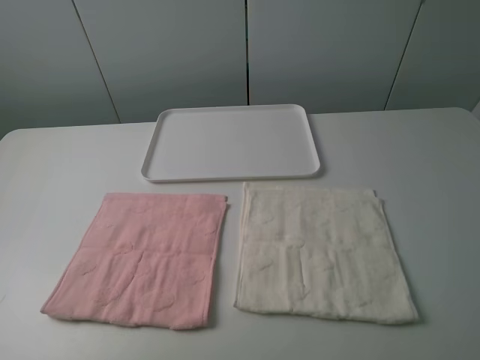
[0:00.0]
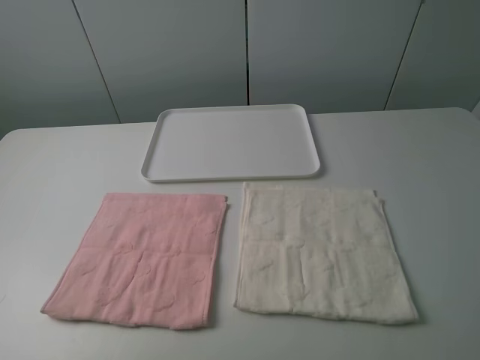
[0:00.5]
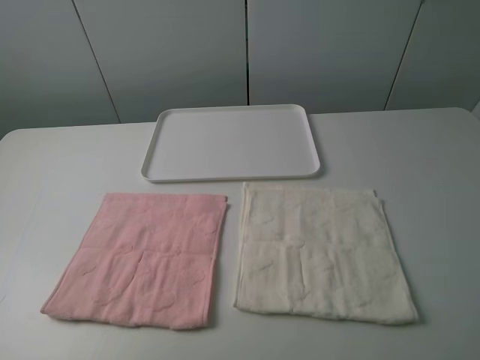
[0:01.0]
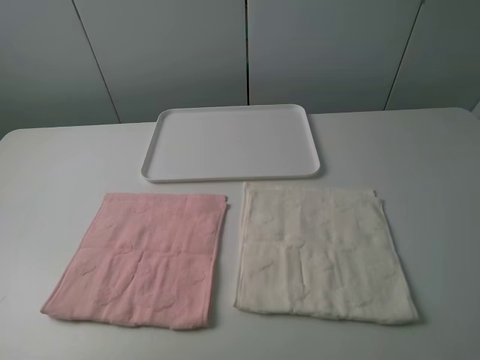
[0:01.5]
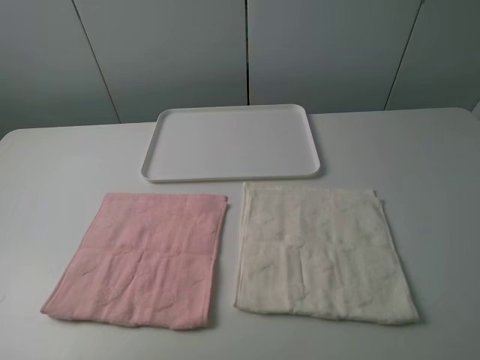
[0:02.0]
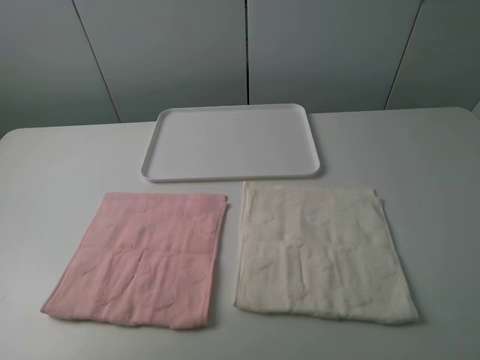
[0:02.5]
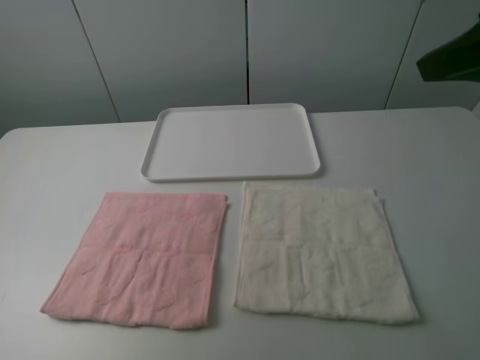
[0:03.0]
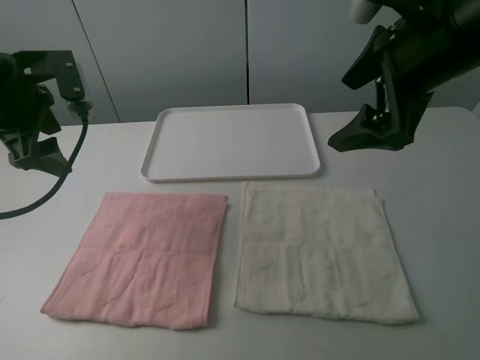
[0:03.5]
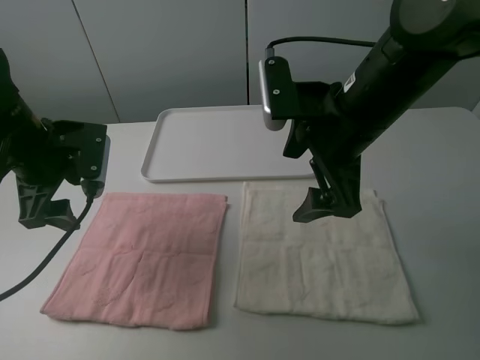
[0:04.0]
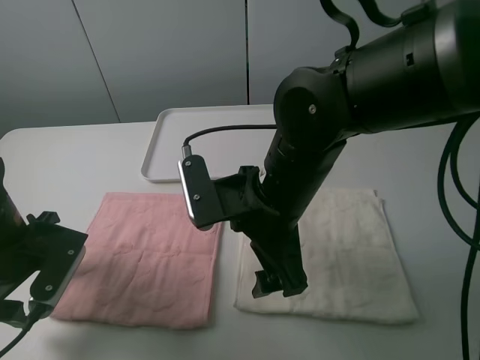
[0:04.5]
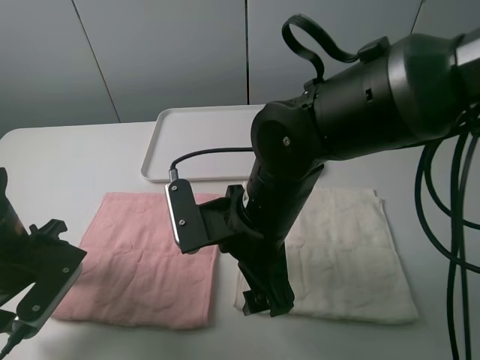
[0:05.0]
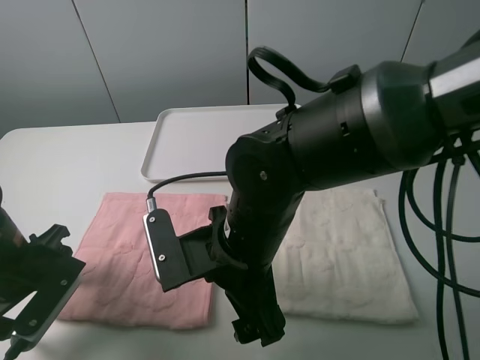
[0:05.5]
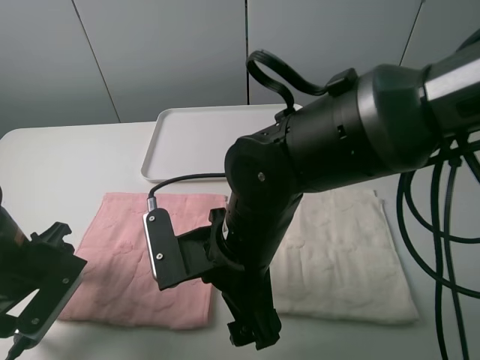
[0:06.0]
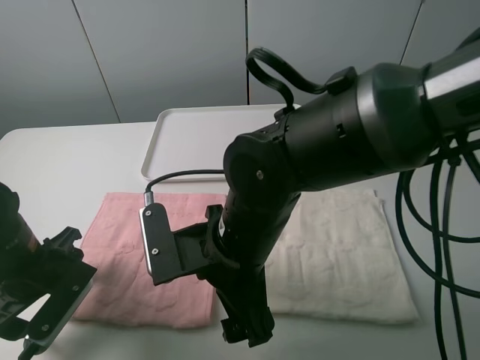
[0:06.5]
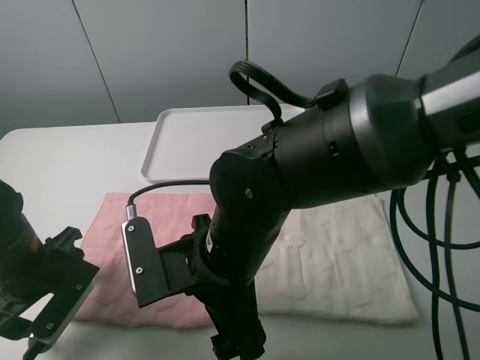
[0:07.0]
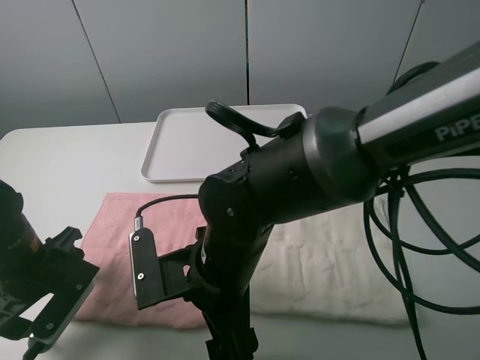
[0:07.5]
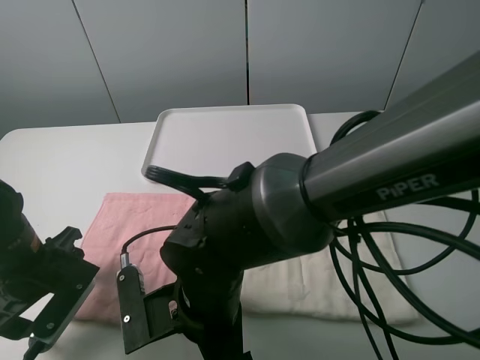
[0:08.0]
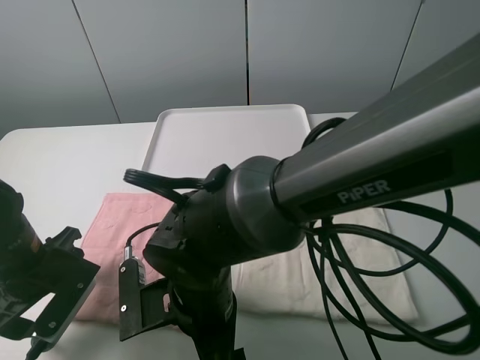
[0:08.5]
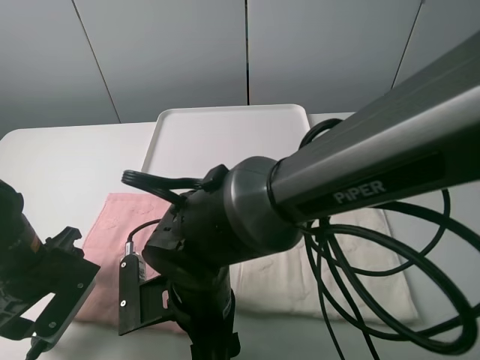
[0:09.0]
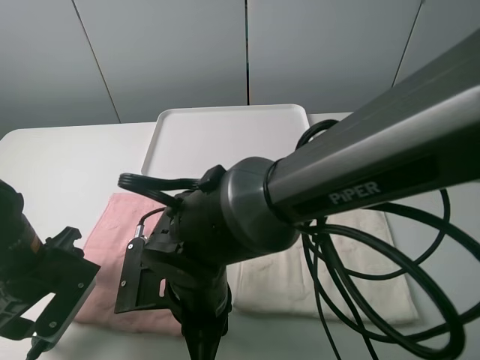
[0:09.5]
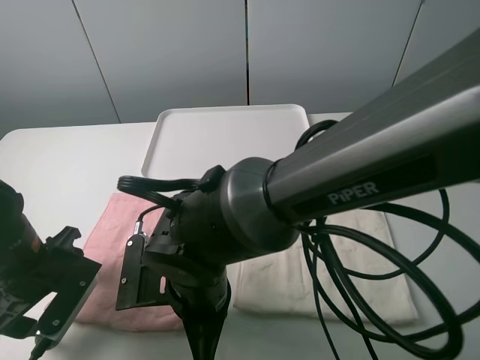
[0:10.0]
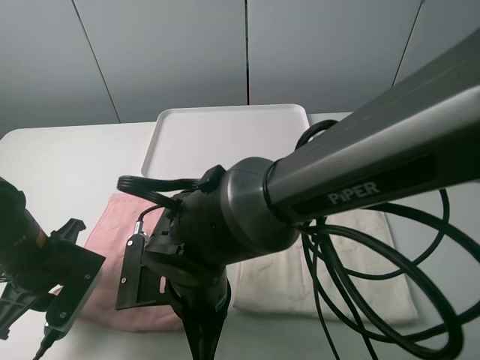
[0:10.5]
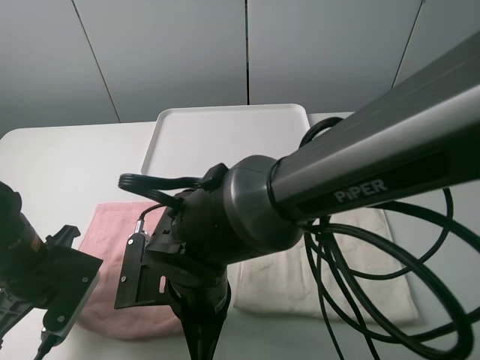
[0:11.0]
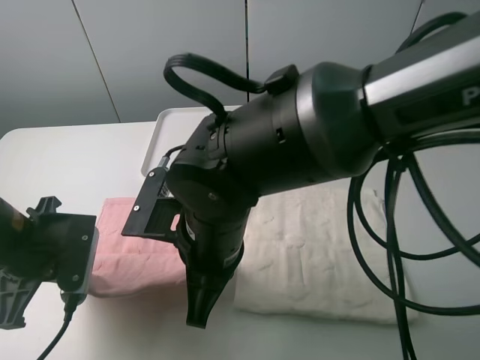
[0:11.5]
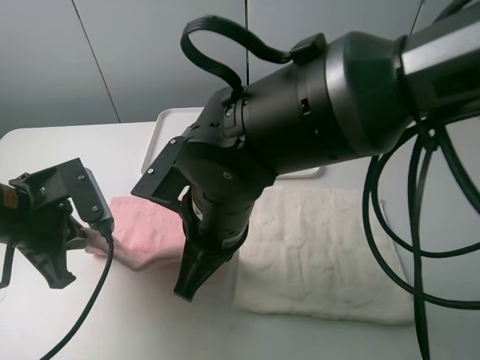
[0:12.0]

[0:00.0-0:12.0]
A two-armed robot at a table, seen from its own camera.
Task of the whole recording: fold one of the towels by two grippers and place it on the tray,then fold another towel by two grippers and place it on the folded towel.
Step, 0:00.0 to 0:10.5: Grasp the pink towel with the left gripper.
0:00.0 to 0:02.0: Both grippers stay put.
0:02.0 to 0:04.0: The left gripper moves forward, approximately 30 cm; the right gripper moves forward and to the left, some 30 cm.
0:04.0 to 0:06.0: The left gripper is displaced backward and downward by roughly 10 cm. The right gripper shifts some 15 cm to the left, downward and backward.
0:06.0 to 0:08.0: The right gripper moves approximately 5 cm.
0:08.0 to 0:10.0: The right gripper closes up.
0:10.0 to 0:12.0: The grippers both shift upward by some 5 cm. The left gripper closes.

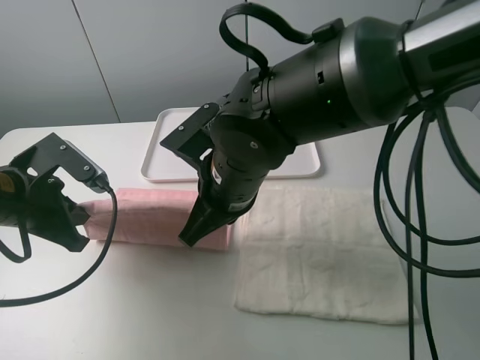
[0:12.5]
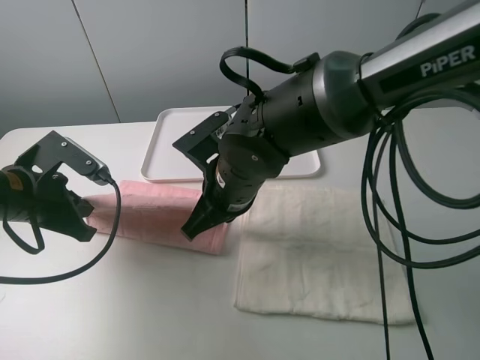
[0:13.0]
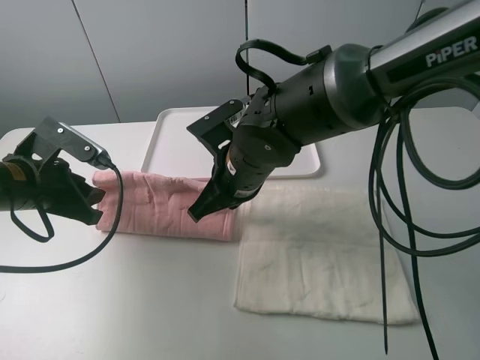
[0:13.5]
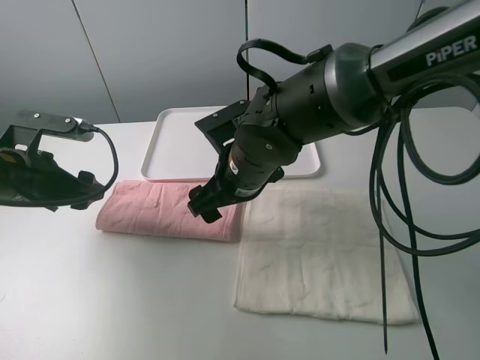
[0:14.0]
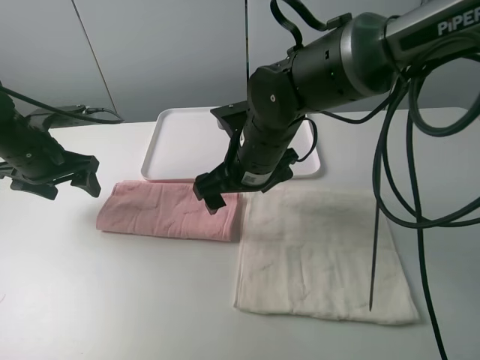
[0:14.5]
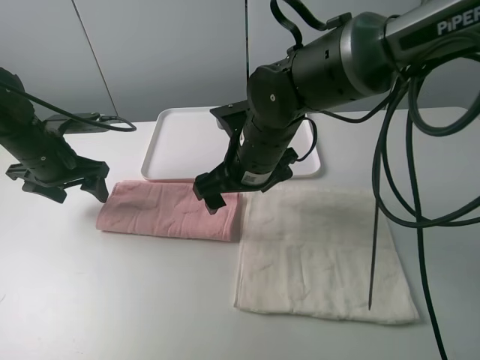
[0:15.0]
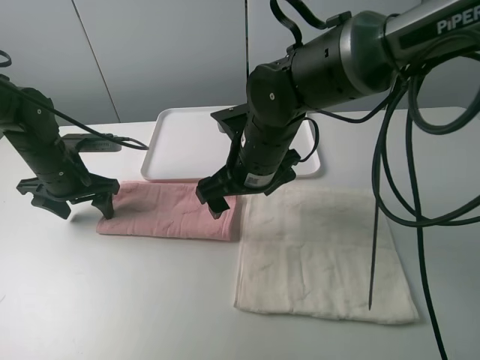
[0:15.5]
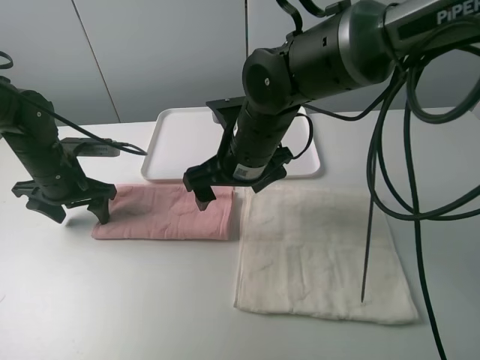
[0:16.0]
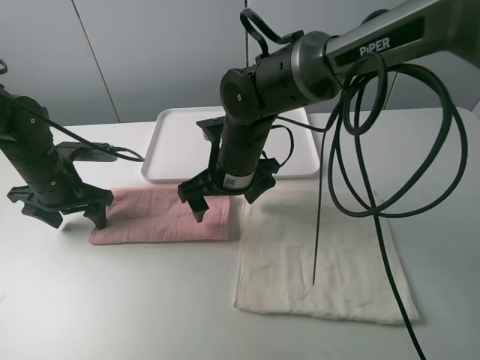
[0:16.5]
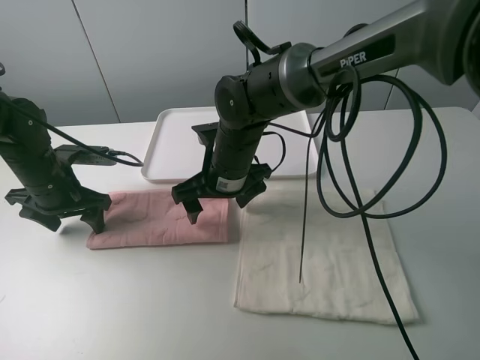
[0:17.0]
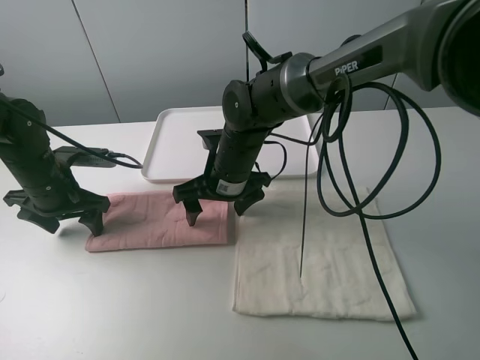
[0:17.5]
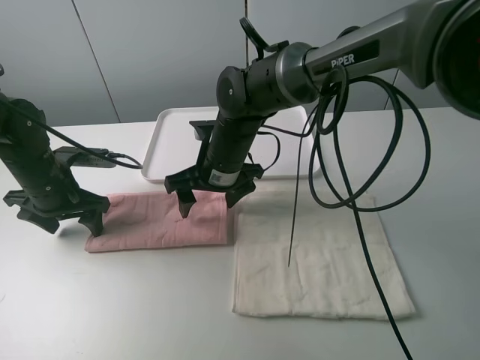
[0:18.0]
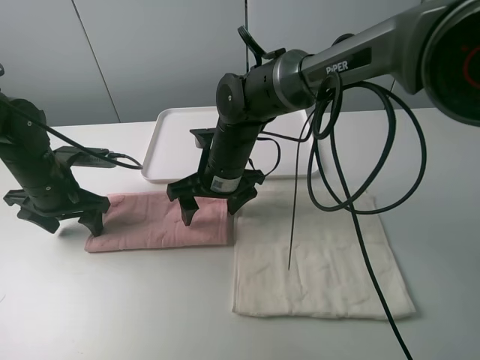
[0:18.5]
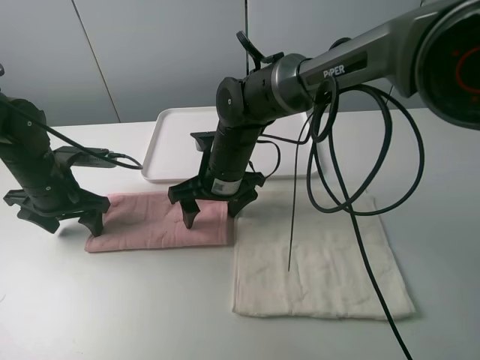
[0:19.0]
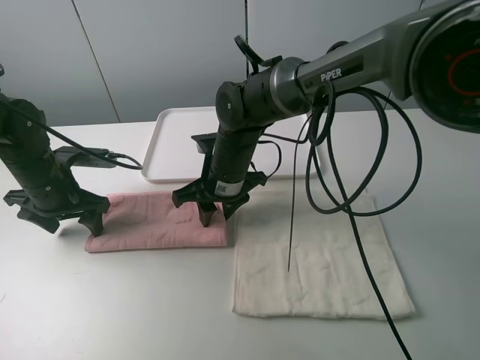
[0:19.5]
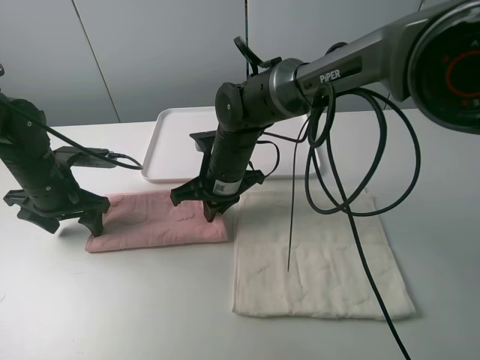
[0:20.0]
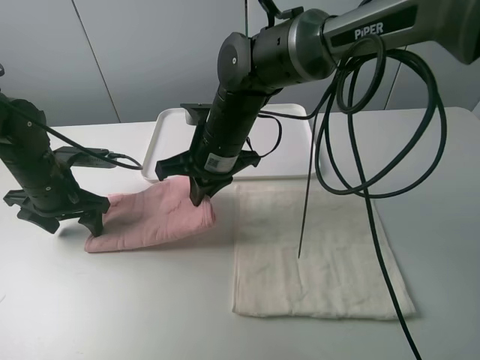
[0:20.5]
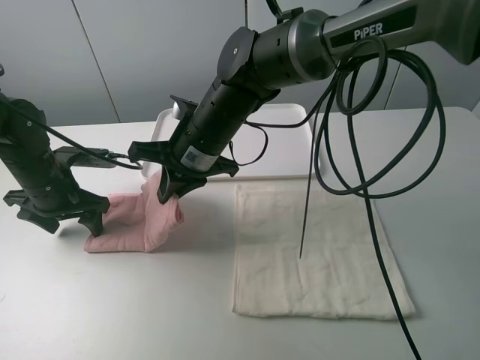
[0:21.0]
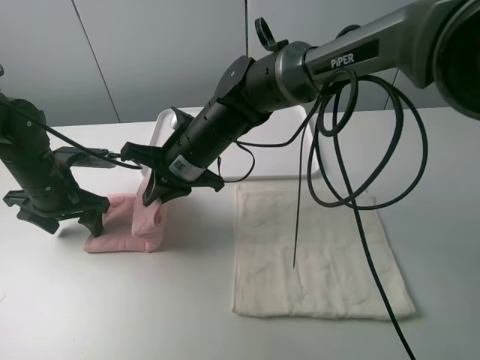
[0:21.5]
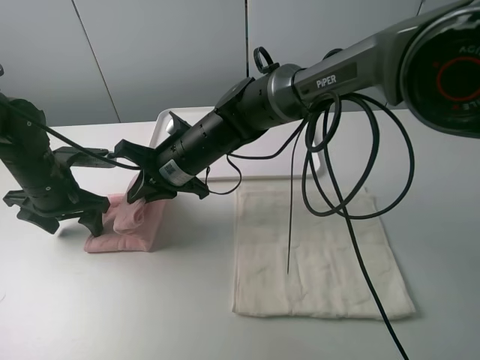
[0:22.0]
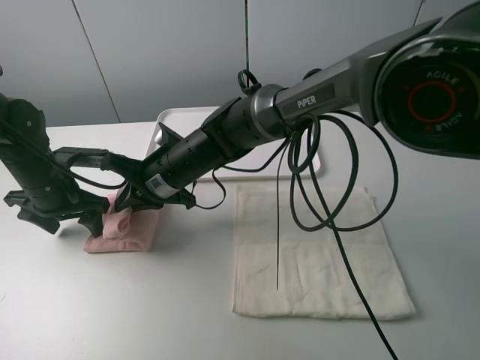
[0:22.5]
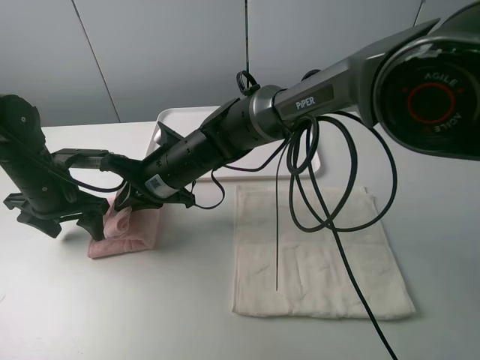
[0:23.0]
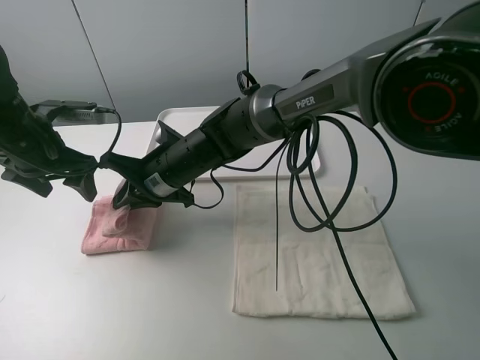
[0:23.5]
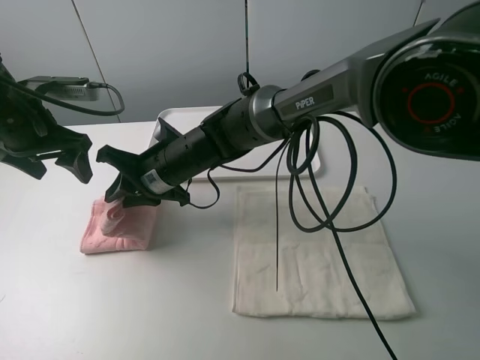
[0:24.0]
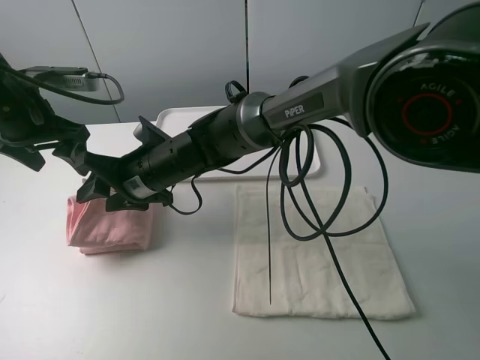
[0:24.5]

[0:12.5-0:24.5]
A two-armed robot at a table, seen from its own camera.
Task of the whole recording: fold one of the towels by two grippers and place it on the tray,then fold another towel by two grippers and place it on the folded towel.
Step, 0:14.0 to 0:15.5: Press the pink towel with the left gripper.
Step, 0:16.0 to 0:19.5: Grasp the pink towel with the right gripper.
0:12.5 to 0:14.5: The left gripper shifts about 10 cm forward, and opens its fingers; the right gripper travels forward by about 5 cm, and opens its fingers.
0:14.5 to 0:16.5: The left gripper moves about 5 cm.
0:18.5 to 0:20.5: The right gripper closes up.
0:20.5 to 0:22.5: The right gripper is displaced to the left and downward by some 10 cm.
0:22.5 to 0:24.5: The right gripper opens up; the left gripper is displaced upward by roughly 15 cm.

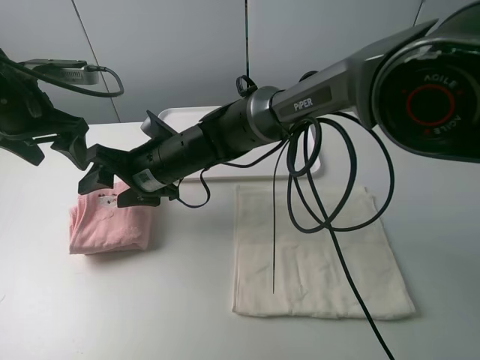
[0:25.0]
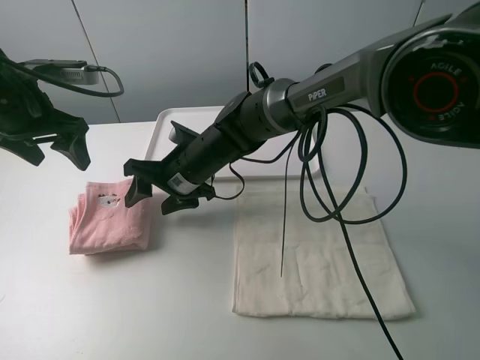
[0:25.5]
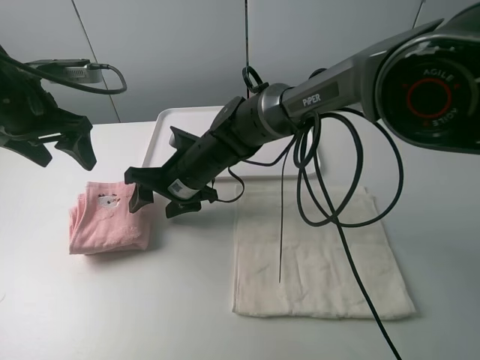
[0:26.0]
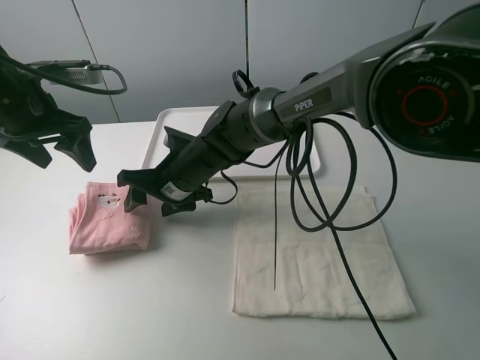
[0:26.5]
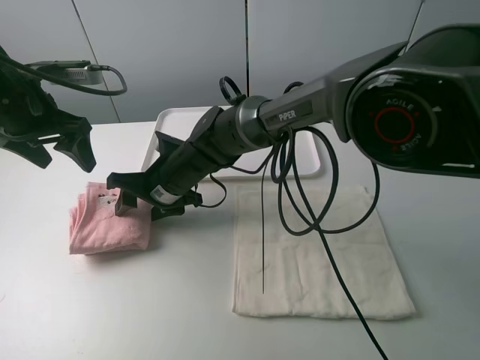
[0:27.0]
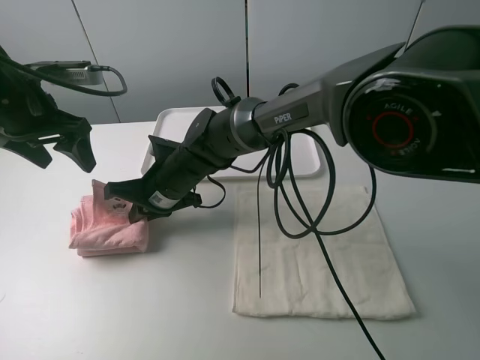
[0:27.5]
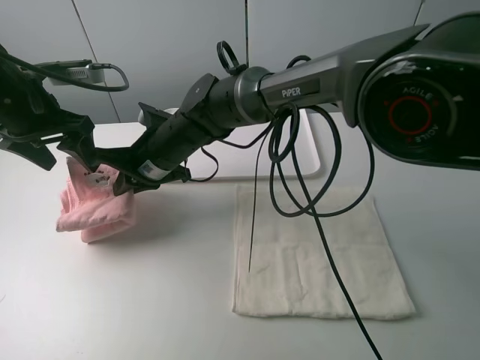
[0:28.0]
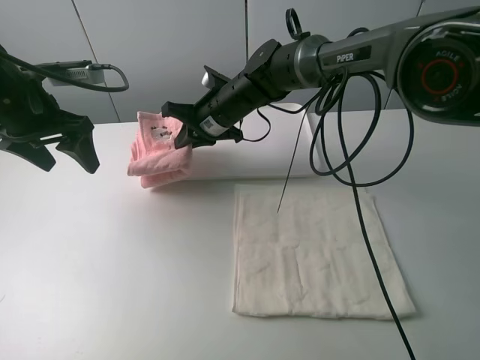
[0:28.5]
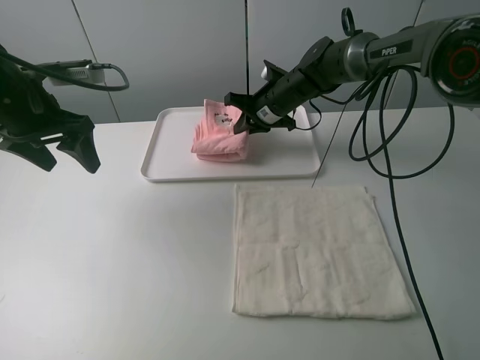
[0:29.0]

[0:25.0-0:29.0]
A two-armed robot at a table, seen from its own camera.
Task of the whole recording: fold one of the towels by two grippers and place it on the tray,then fold another towel by two grippers and place it on the folded towel.
Step, 0:25.0 to 0:27.5: Grasp the pink towel with the right gripper.
0:25.0 to 0:27.0: The grippers make only small movements.
0:27.0 to 0:29.0: The right gripper goes about 25 cm to the right and forward, and closes.
